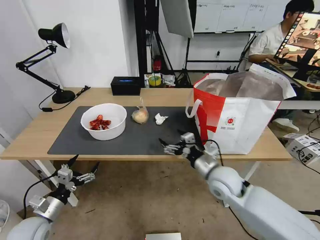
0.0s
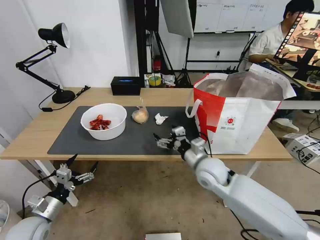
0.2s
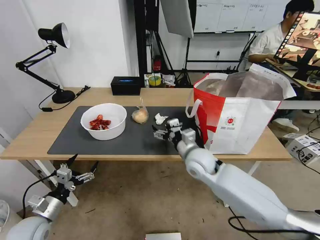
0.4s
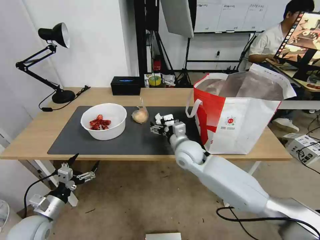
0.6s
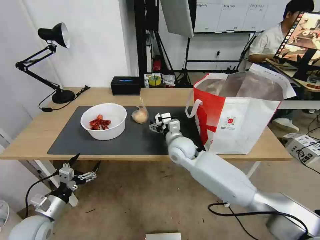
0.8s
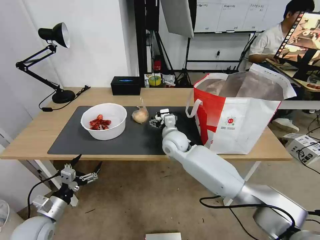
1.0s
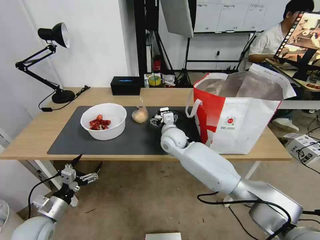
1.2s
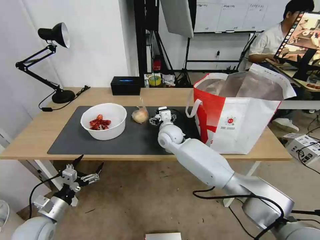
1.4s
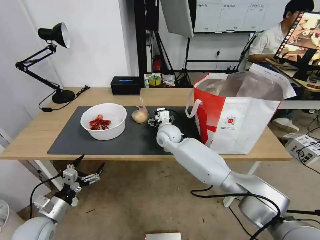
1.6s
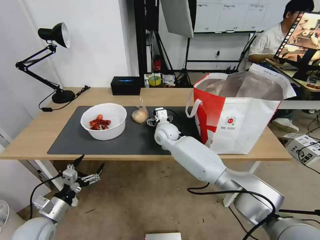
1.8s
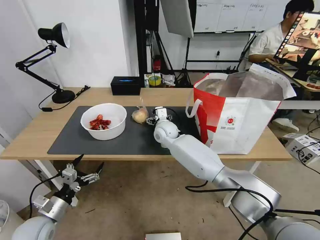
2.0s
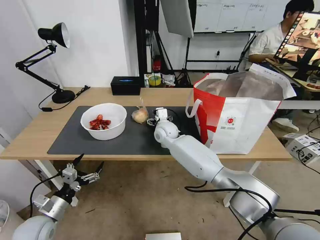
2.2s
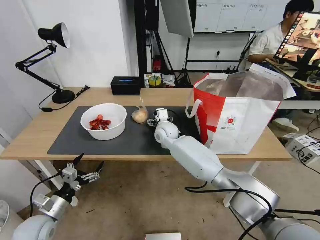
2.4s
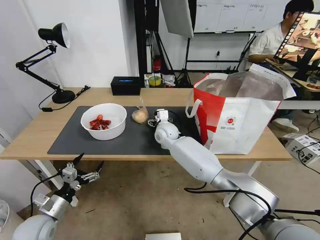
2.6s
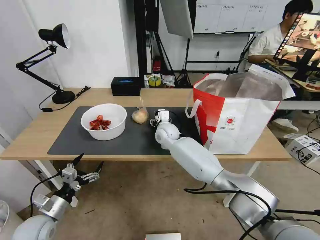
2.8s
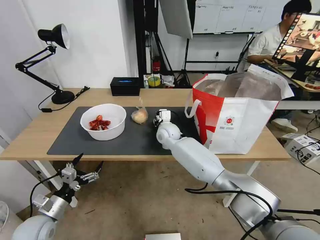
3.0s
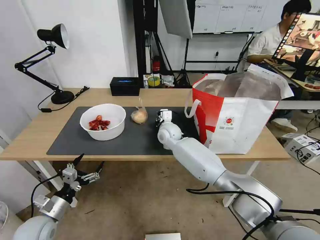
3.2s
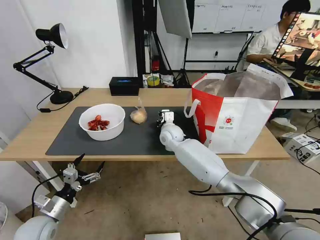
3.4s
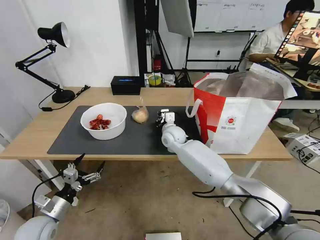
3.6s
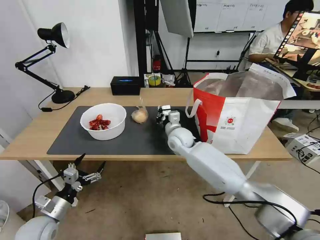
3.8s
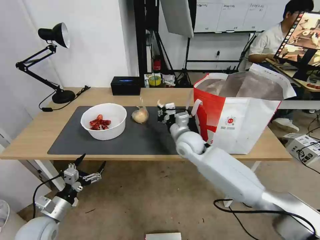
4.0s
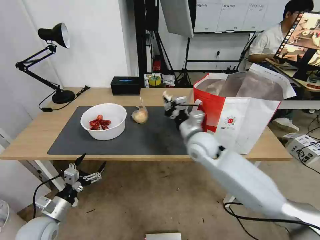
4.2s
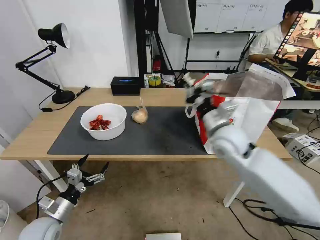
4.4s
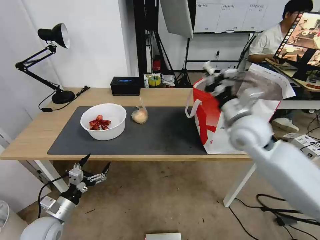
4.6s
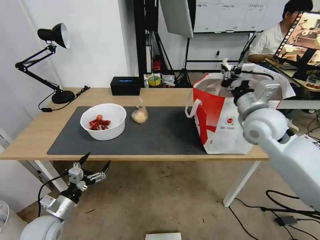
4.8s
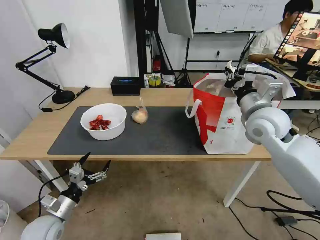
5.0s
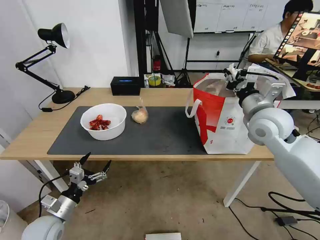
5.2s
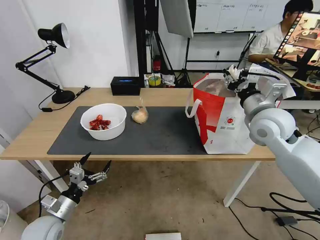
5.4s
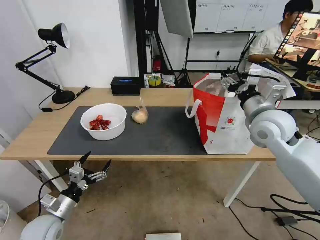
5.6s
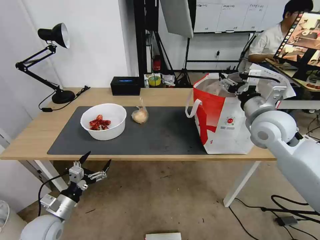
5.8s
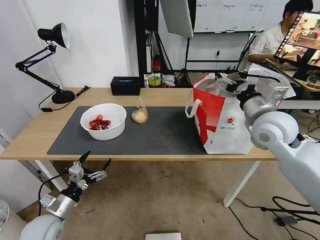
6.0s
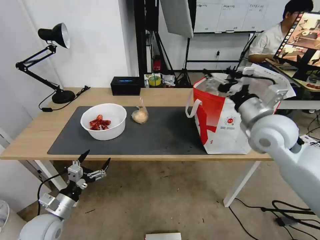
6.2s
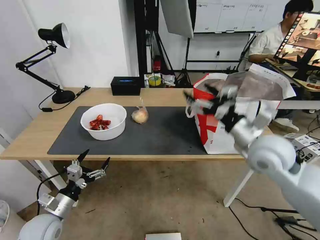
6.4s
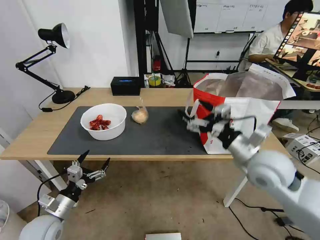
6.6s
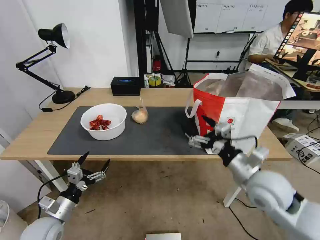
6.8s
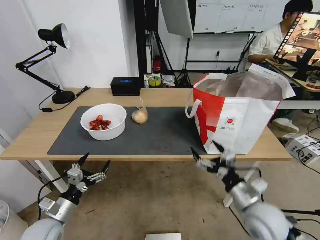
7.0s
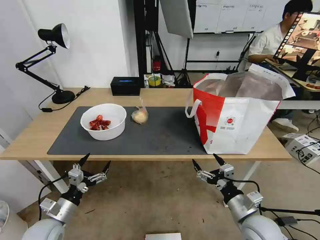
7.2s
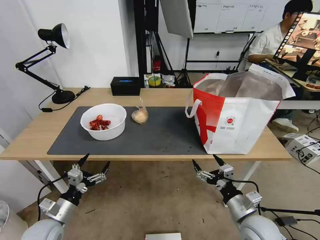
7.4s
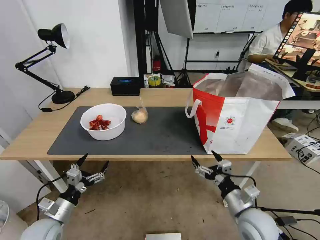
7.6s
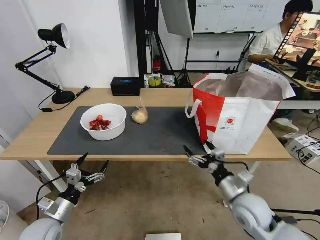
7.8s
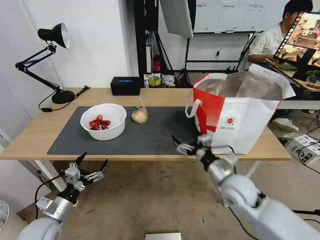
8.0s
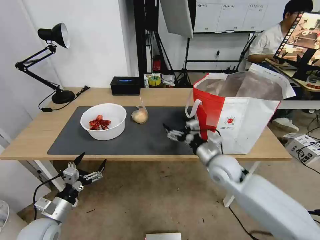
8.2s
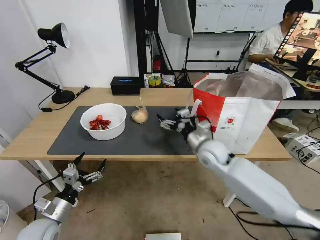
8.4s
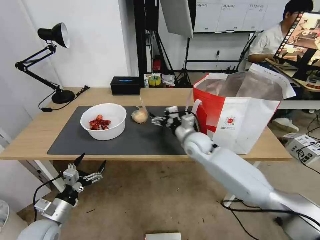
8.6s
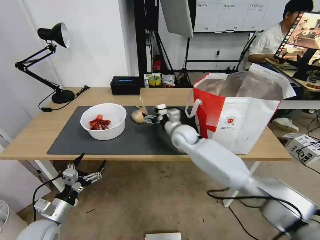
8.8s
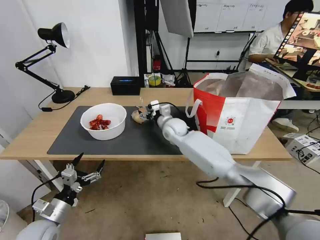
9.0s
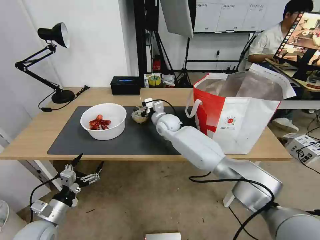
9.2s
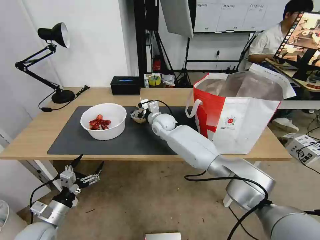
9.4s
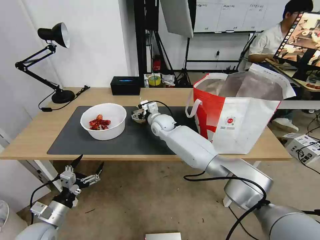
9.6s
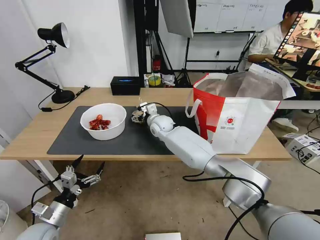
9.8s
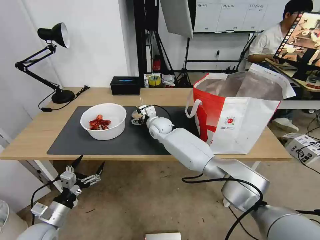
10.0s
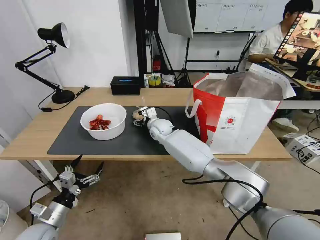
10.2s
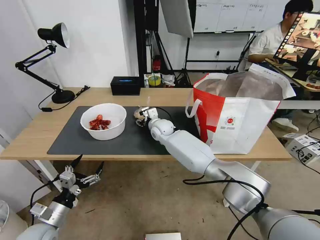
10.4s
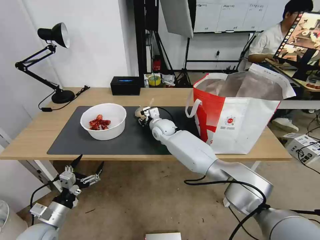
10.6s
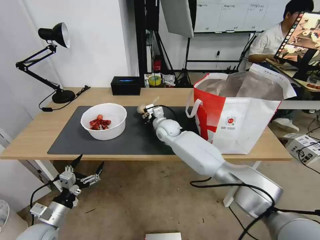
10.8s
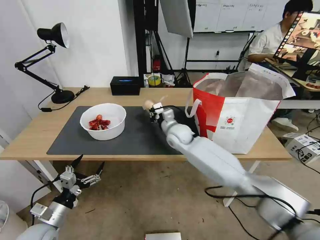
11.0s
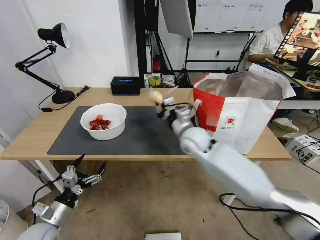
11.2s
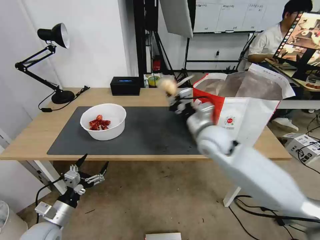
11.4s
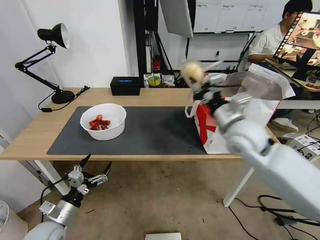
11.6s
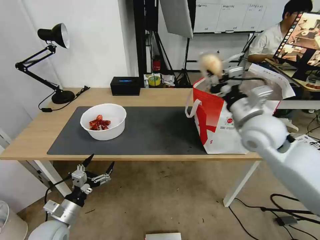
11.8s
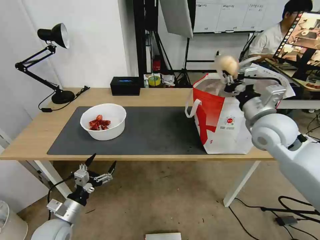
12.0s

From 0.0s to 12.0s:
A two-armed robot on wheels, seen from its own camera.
Task of the whole recording: Pick up the trash from the table and place it into the takeout bag.
From 0.0s to 1.6s: The right gripper travels forward and to the left by about 25 cm.
From 1.6s to 3.0s: The right gripper closes its fingers.
From 3.0s to 4.4s: The right gripper heads to the right, backward and upward, covering roughly 25 cm, and closes up.
From 4.4s to 6.0s: The right gripper is displaced to the right and upward by approximately 10 cm, and opens its fingers.
From 6.0s to 7.6s: The right gripper shifts about 30 cm downward and backward.
From 7.6s to 9.0s: The right gripper goes roughly 40 cm forward and to the left.
From 9.0s to 10.4s: The right gripper is displaced to the left by about 5 cm.
From 10.4s to 12.0s: The right gripper heads to the right, backward and upward, covering approximately 40 cm, and closes.

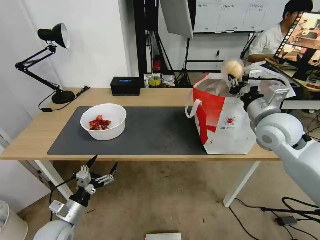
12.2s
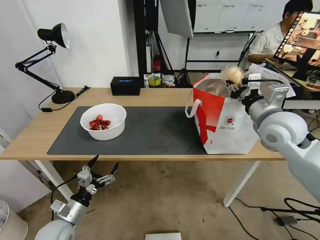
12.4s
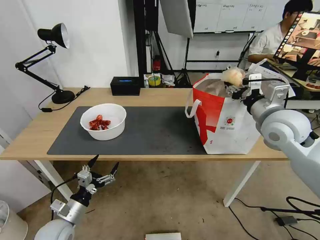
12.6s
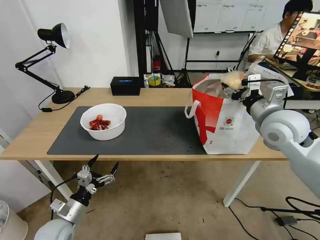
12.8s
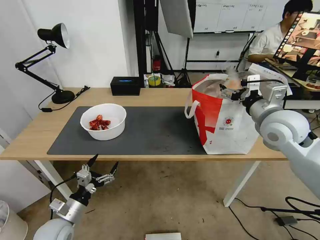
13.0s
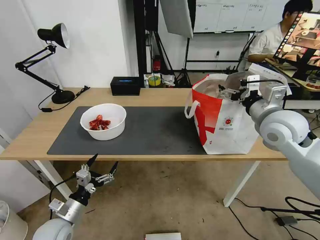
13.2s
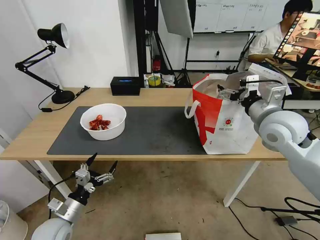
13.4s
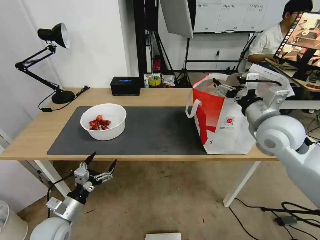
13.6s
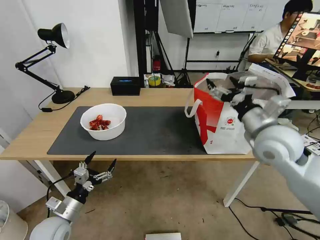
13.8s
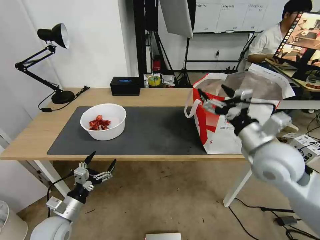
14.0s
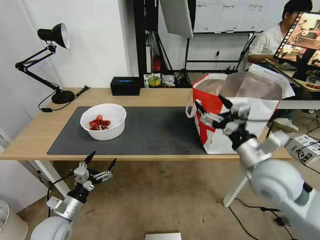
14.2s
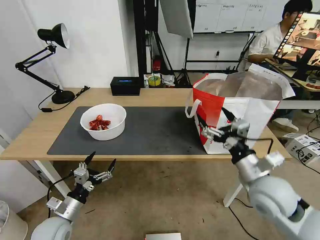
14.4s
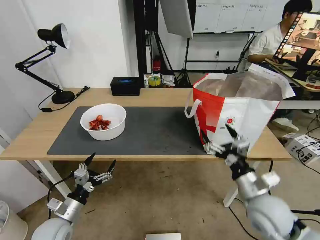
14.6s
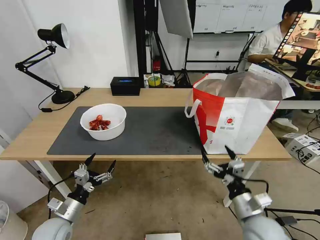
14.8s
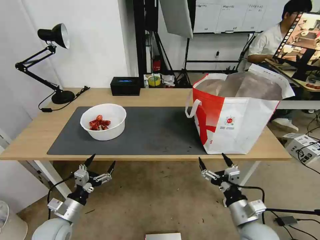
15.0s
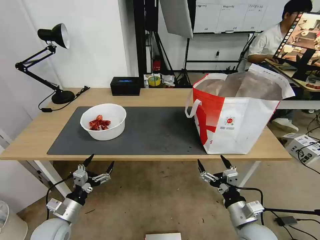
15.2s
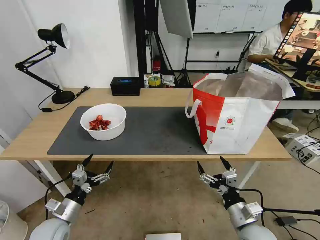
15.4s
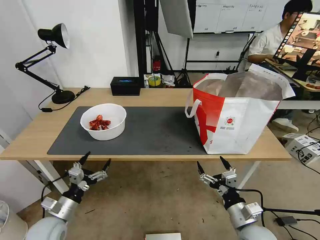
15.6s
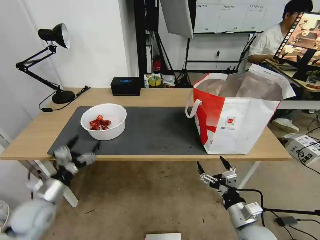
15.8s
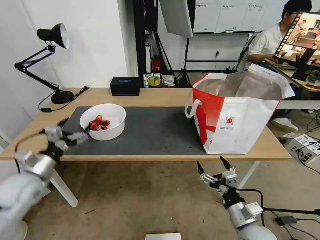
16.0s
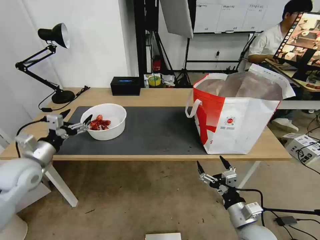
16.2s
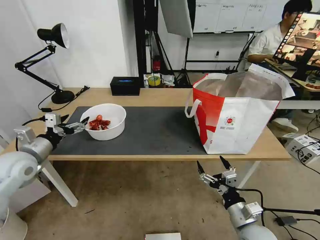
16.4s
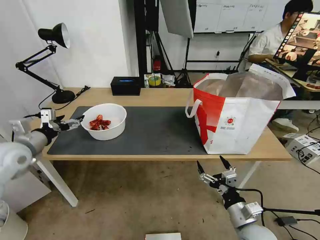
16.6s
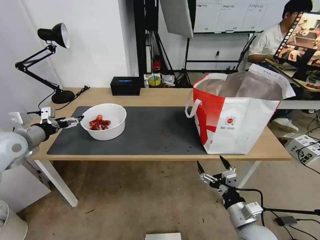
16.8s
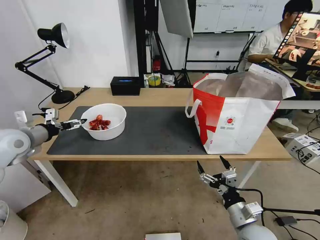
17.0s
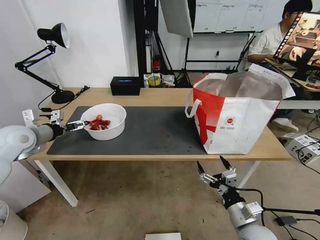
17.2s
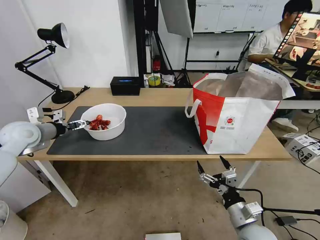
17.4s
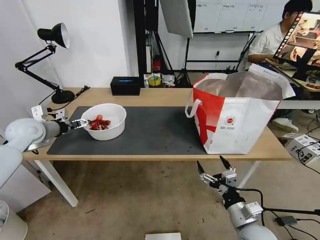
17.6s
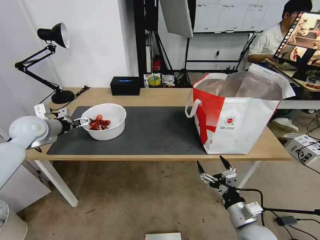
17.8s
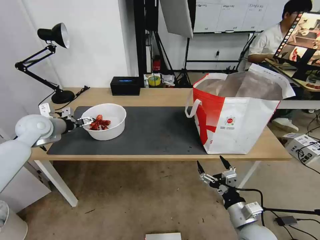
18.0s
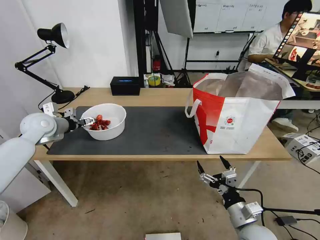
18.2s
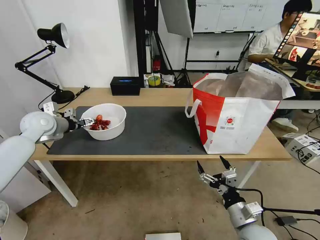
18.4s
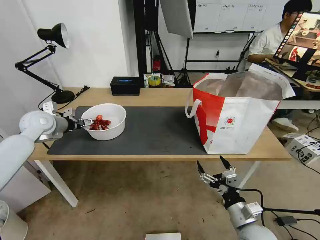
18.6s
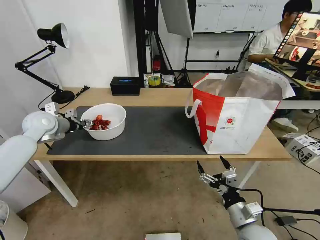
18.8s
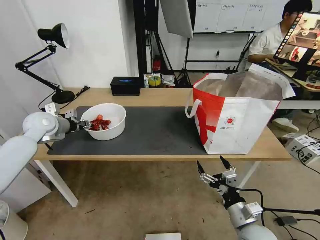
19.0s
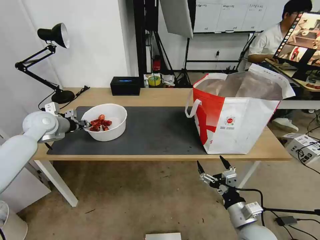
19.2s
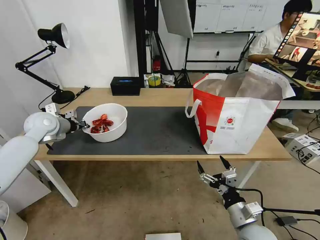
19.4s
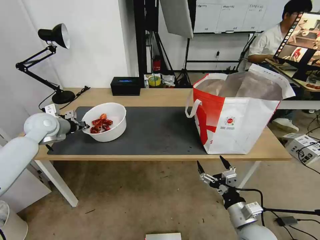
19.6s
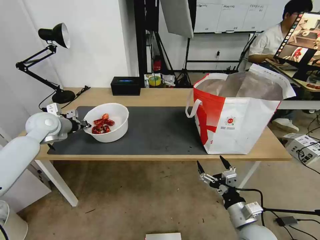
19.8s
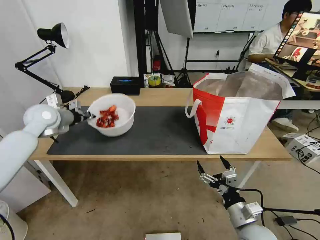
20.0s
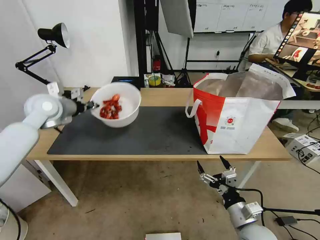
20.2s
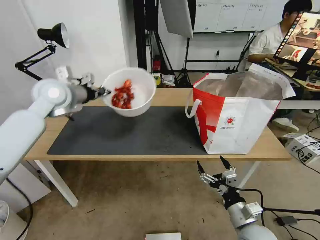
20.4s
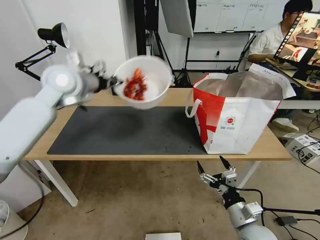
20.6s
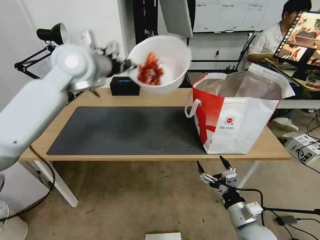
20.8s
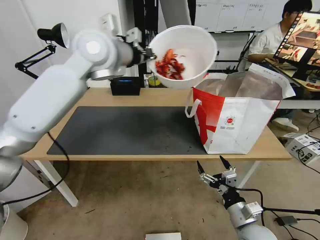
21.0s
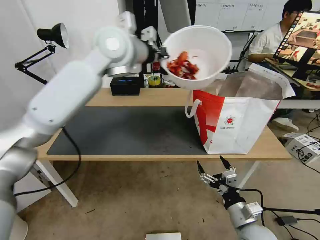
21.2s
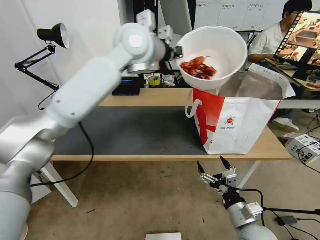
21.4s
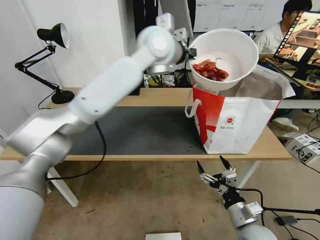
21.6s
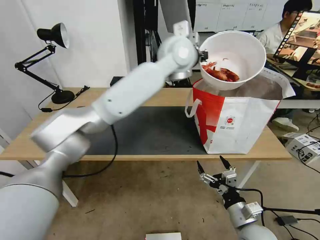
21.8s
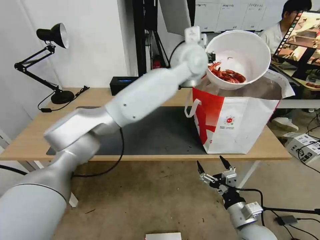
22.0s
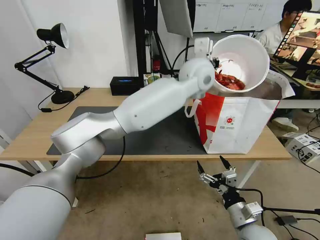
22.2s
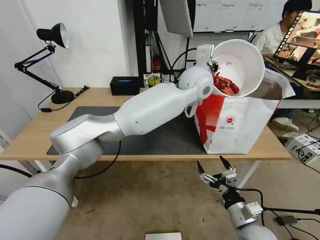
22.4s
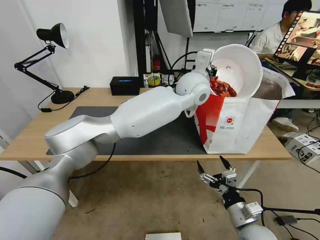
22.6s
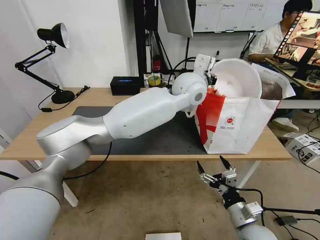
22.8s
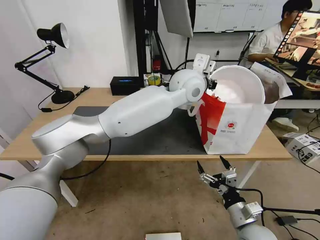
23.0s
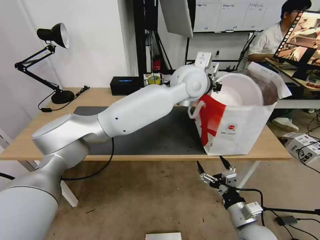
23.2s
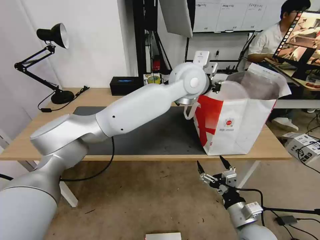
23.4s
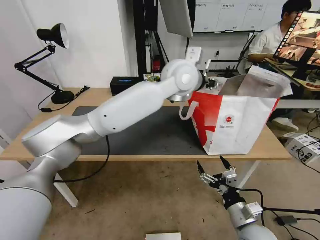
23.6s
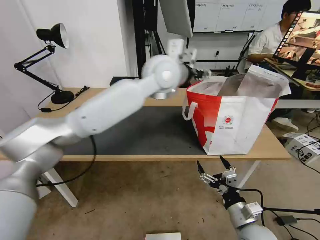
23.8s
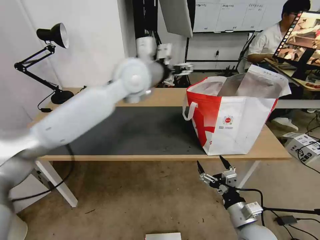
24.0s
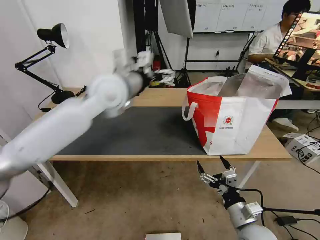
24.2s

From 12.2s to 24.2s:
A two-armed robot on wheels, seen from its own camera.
Task of the whole recording: Pick up the trash from the table and place it into the takeout bag.
From 12.2s to 13.8s: The right gripper shifts by about 5 cm, and opens.
From 13.8s to 15.2s: The right gripper heads downward and backward, covering some 30 cm.
From 15.2s to 16.6s: The left gripper moves upward, forward and to the left, about 30 cm.
From 16.6s to 18.2s: The left gripper is displaced forward by approximately 10 cm.
From 18.2s to 19.8s: The left gripper closes.
From 19.8s to 21.2s: The left gripper moves to the right and upward, some 40 cm.
From 21.2s to 22.6s: The left gripper goes some 25 cm to the right and downward.
From 22.6s to 24.2s: The left gripper heads to the left, covering approximately 25 cm, and opens its fingers.
